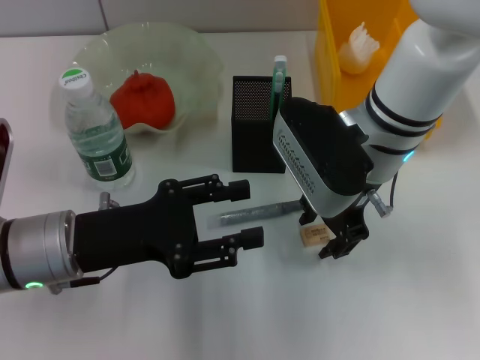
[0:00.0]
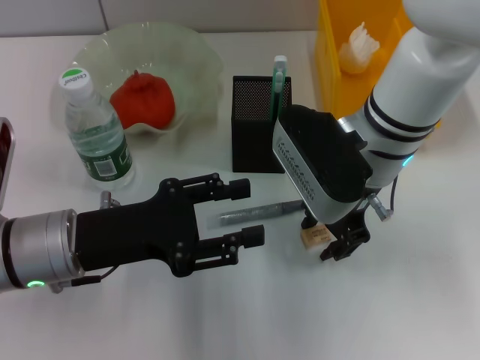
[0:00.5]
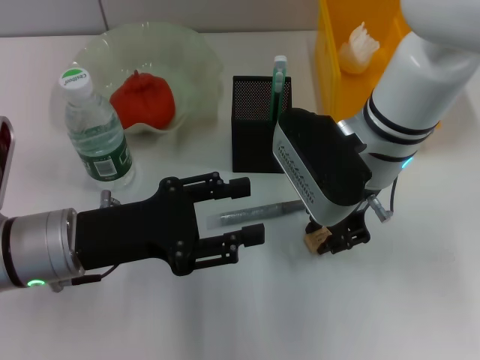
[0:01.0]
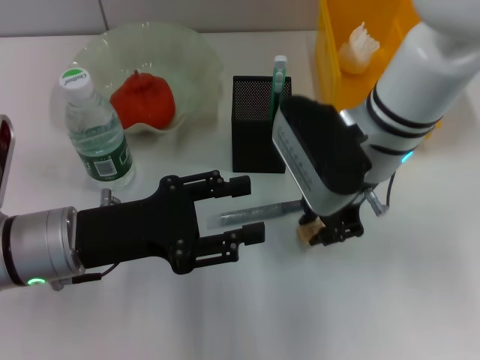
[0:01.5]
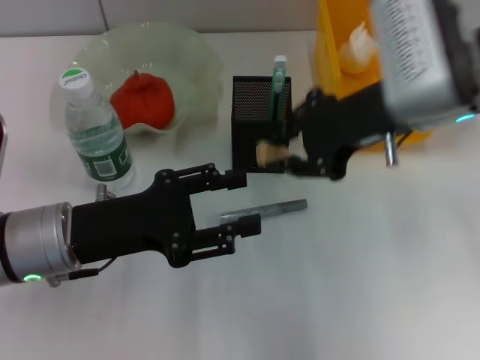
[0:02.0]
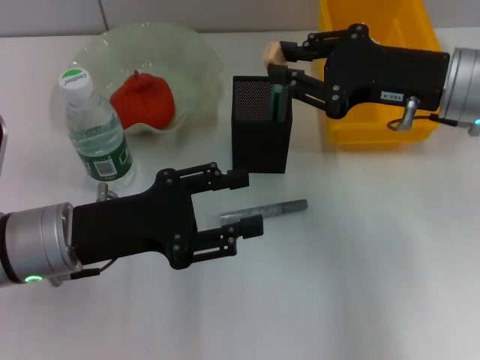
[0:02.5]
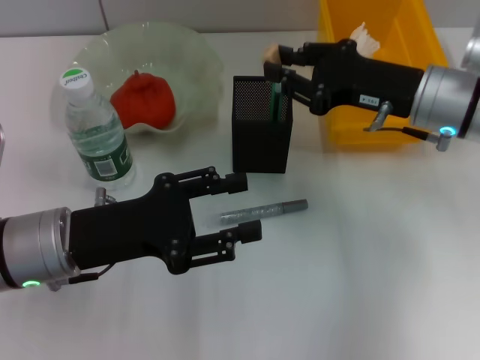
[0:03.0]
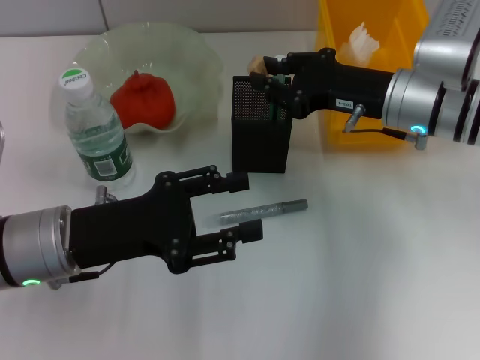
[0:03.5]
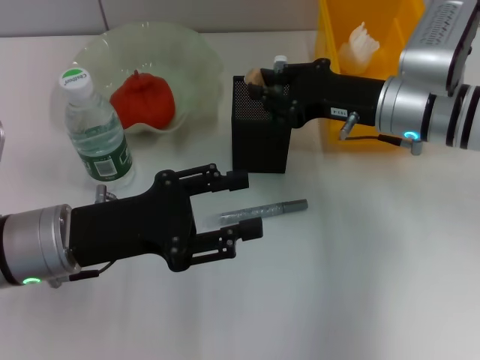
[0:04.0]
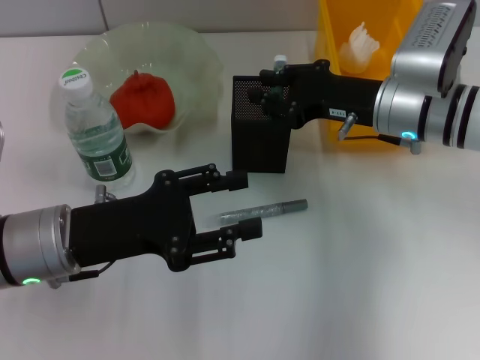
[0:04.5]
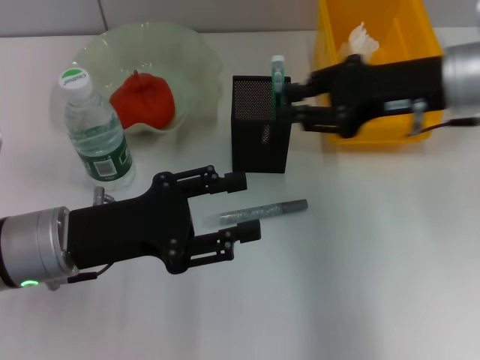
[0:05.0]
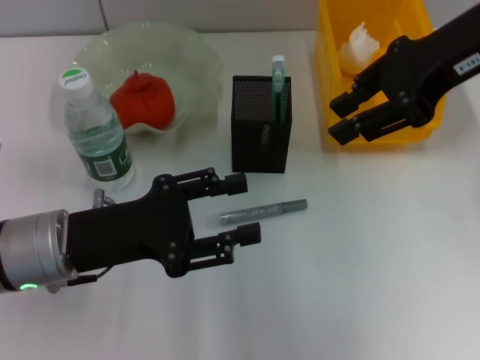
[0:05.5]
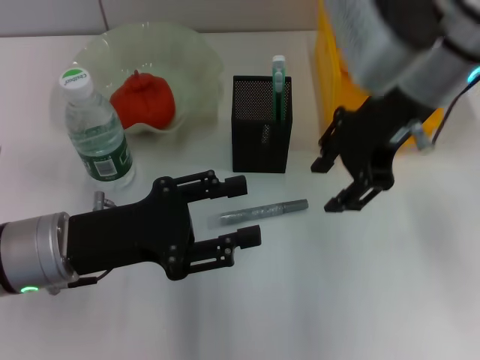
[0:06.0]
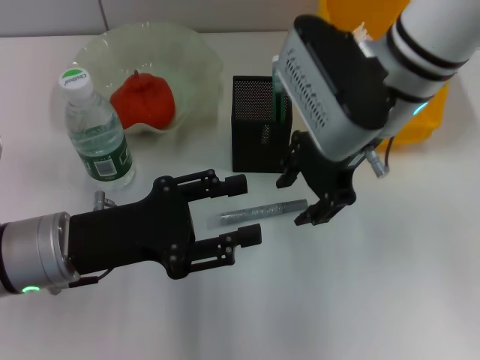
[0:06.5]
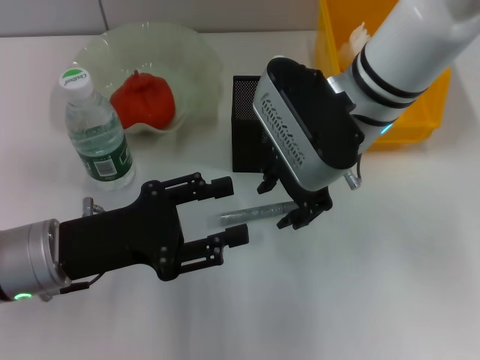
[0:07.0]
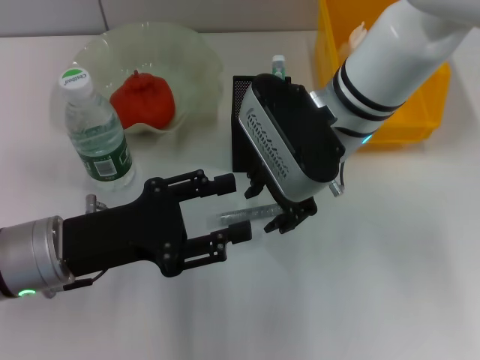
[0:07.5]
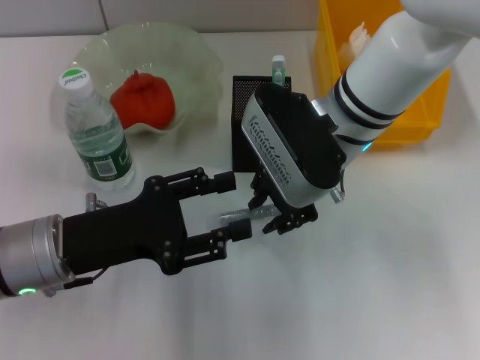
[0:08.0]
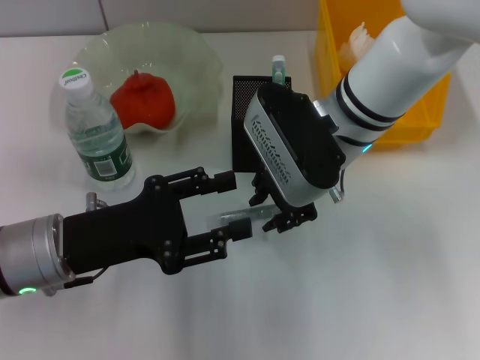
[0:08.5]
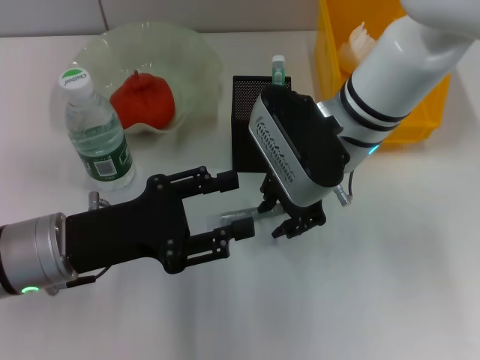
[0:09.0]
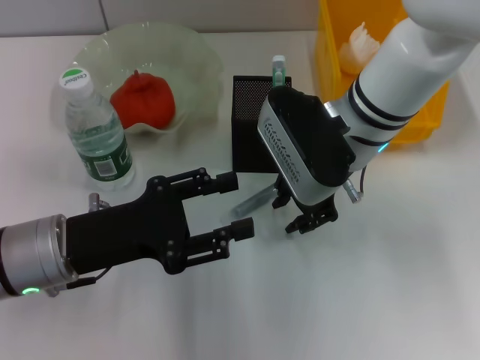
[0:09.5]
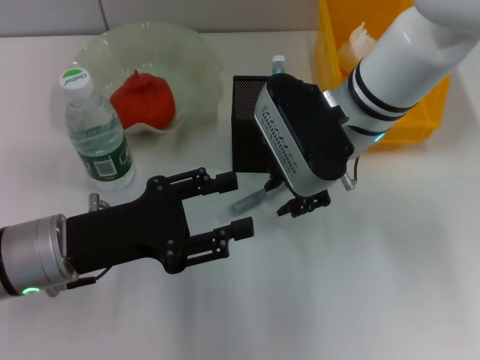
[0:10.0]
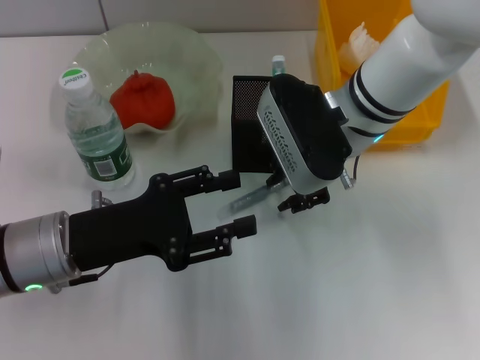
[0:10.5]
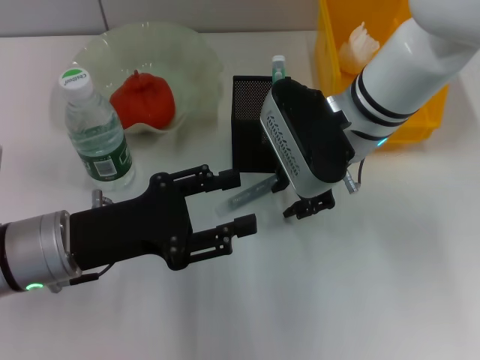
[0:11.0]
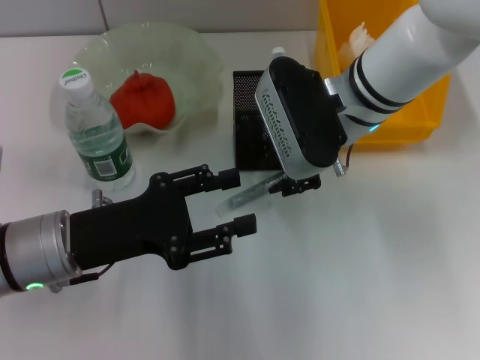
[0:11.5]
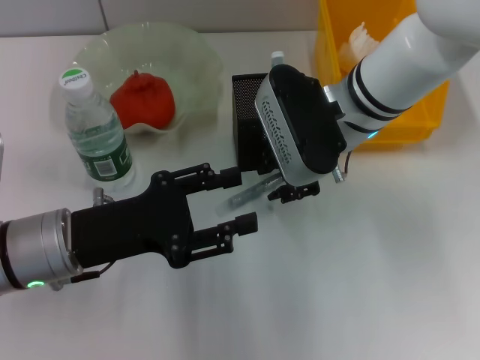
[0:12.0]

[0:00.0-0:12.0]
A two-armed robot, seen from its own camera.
Step, 0:01.5 to 0:04.5: Put the eraser into the pen holder with the right hand.
0:00.0 to 0:02.0: The right gripper goes some 10 cm upward and to the right, and closes up.
0:02.0 to 0:04.0: The right gripper shifts approximately 10 cm downward.
0:04.0 to 0:06.0: The right gripper moves upward, about 15 cm, and opens up.
0:06.0 to 0:08.0: The right gripper goes some 10 cm downward and to the left.
0:08.0 to 0:12.0: The grippers move only a little.

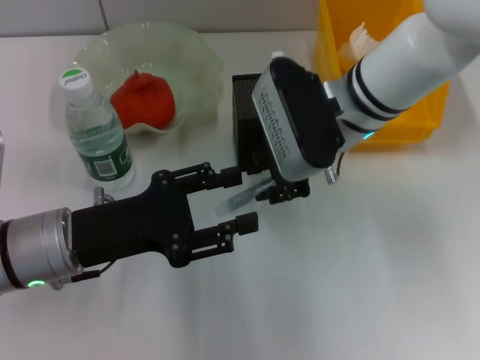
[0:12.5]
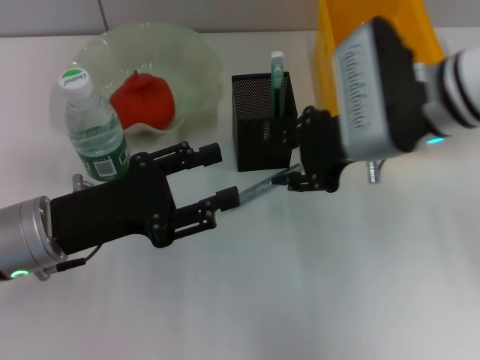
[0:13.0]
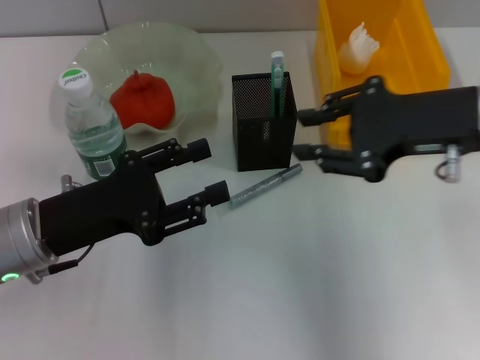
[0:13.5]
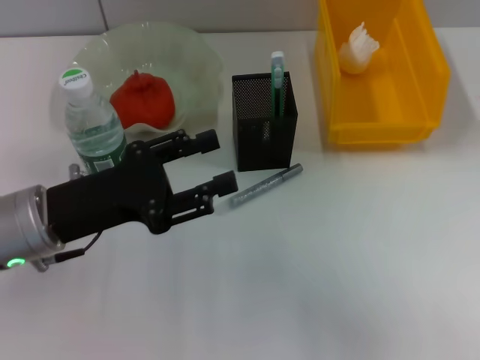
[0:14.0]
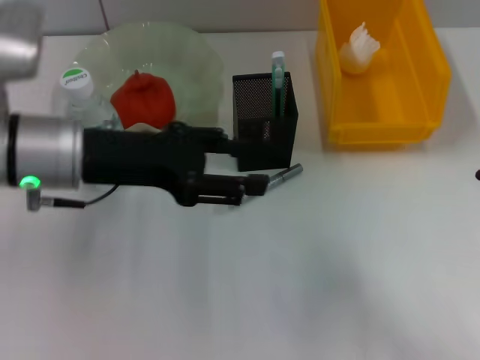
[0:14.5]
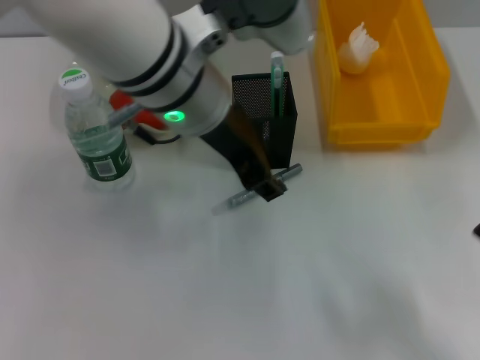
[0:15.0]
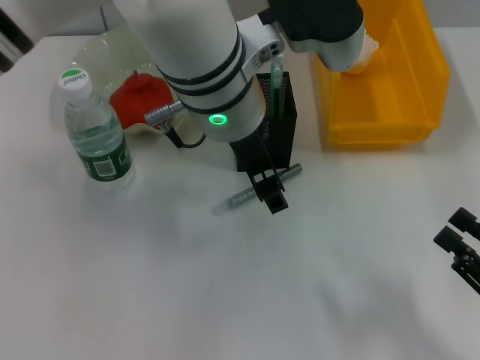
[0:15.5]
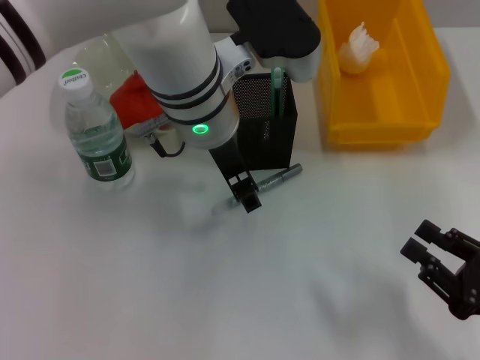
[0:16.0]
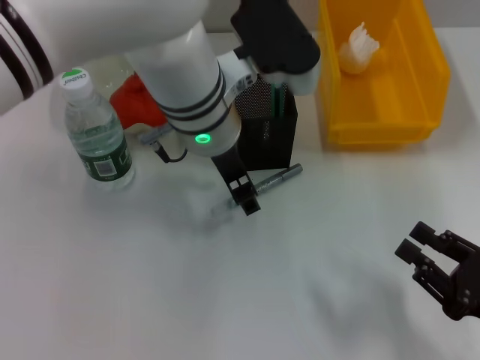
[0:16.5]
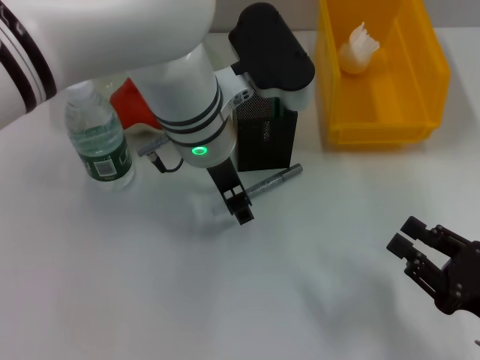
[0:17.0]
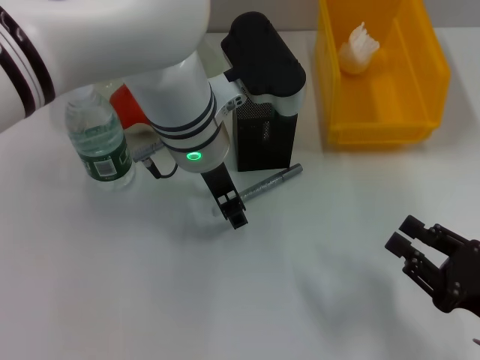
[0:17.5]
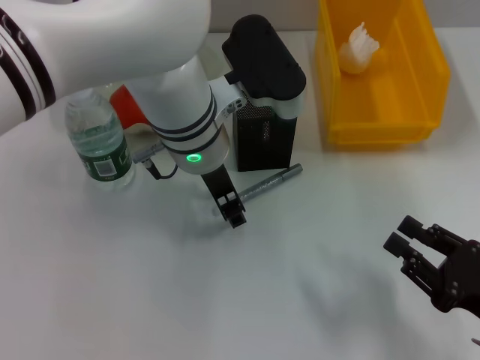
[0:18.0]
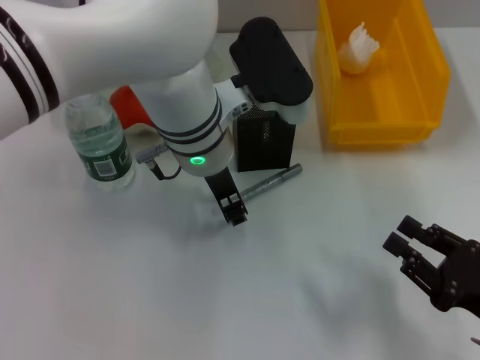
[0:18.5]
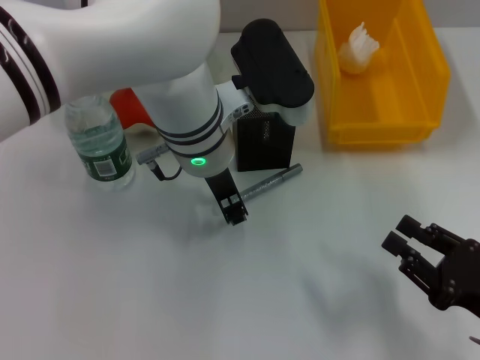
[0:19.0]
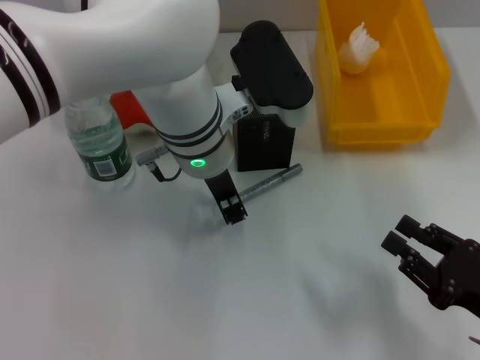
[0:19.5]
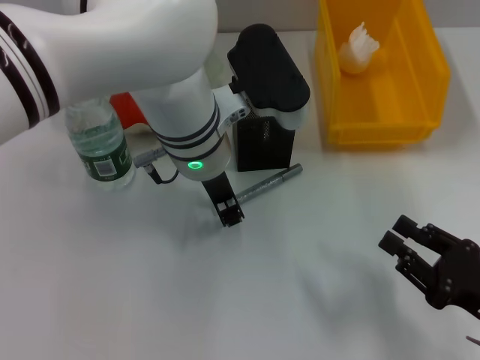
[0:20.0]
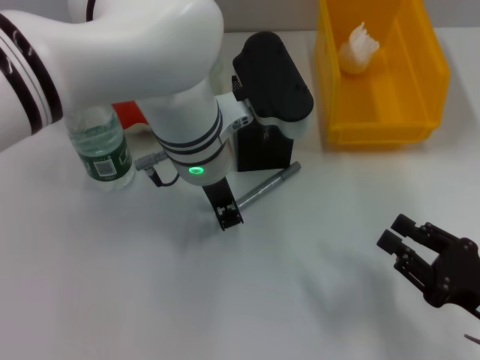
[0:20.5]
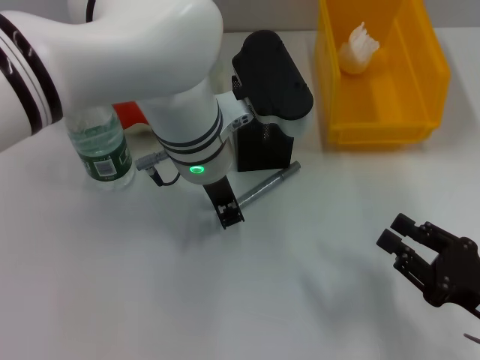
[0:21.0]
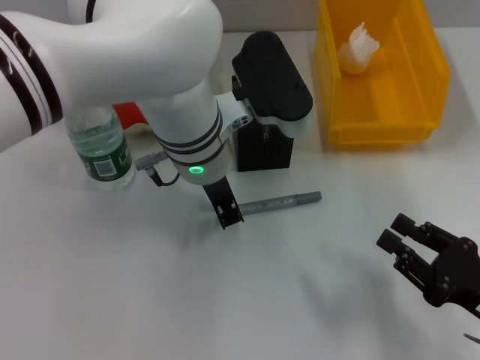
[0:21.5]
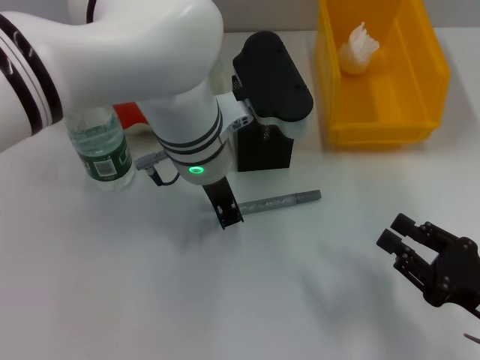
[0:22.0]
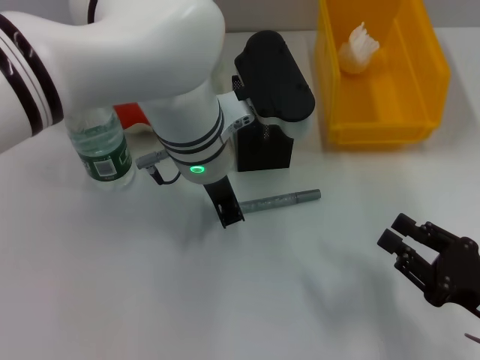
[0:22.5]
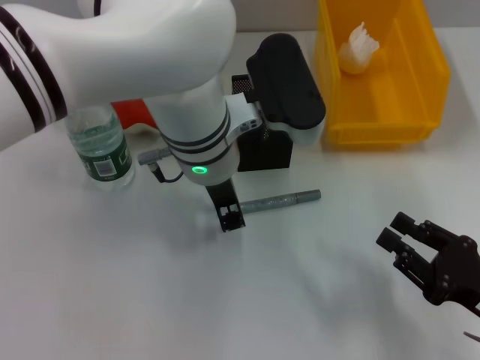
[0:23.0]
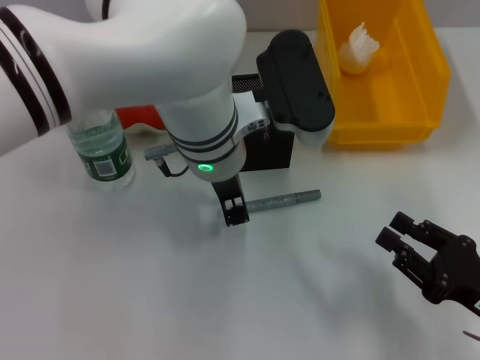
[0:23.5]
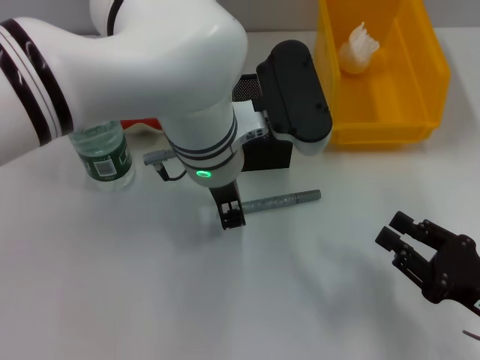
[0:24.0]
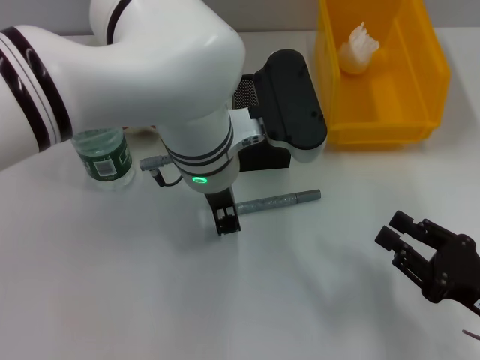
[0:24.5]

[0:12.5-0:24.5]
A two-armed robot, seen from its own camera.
0:12.5 to 0:14.5: The right gripper moves to the right and backward, approximately 30 cm. The left gripper travels upward and forward by roughly 10 cm.
0:14.5 to 0:16.5: The right gripper heads downward, covering about 5 cm. The left gripper is displaced to the right by approximately 15 cm.
0:16.5 to 0:18.5: The grippers stay close to where they were, moving slightly.
0:18.5 to 0:22.5: Both grippers stay put.
0:22.5 to 0:24.5: The grippers move only a little.

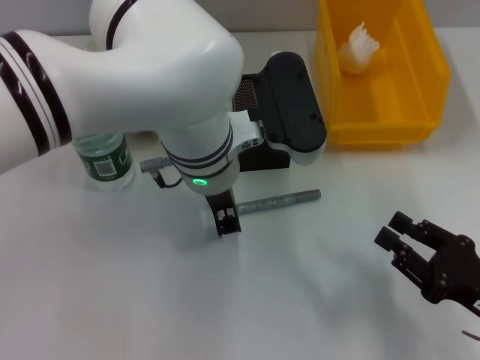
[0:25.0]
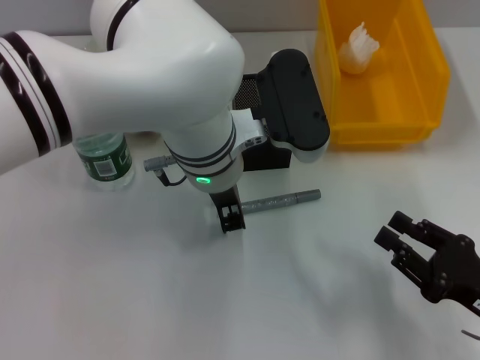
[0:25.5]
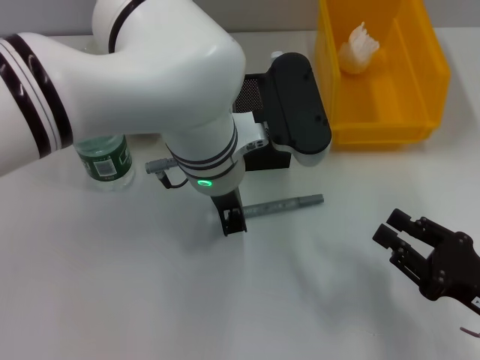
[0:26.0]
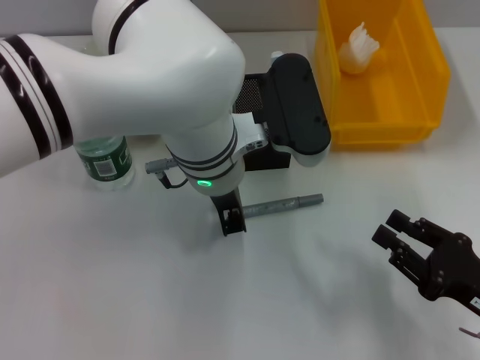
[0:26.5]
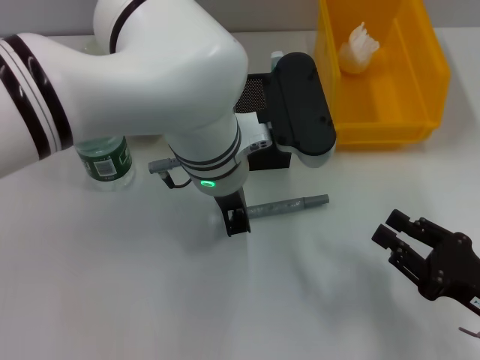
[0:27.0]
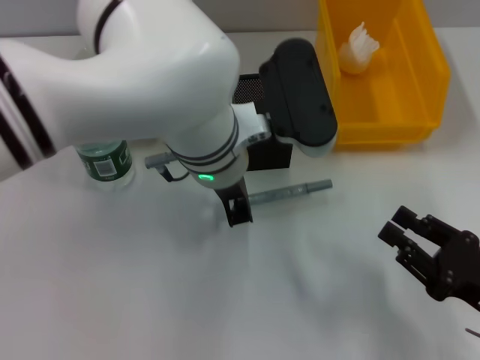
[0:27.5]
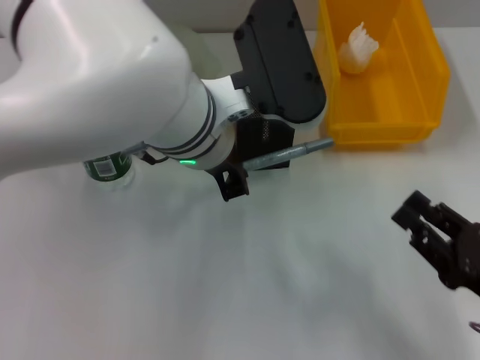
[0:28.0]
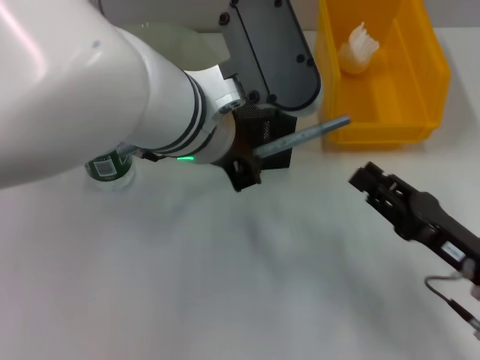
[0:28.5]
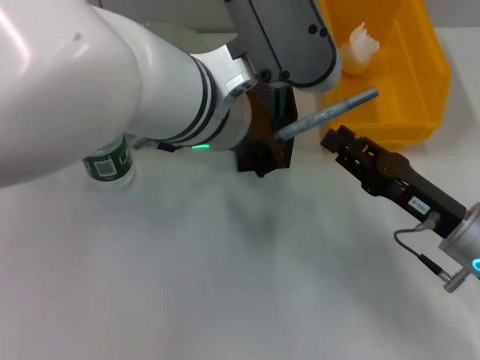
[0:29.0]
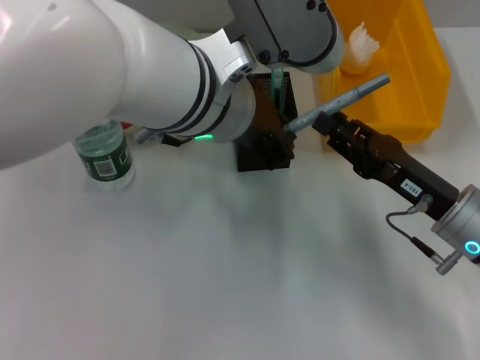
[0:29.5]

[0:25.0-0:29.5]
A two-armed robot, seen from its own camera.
Step, 0:25.0 to 0:27.0: Grab the gray glue with the left hand.
0:25.0 to 0:27.0: The two grippers keep their place.
0:27.0 to 0:29.5: The left gripper travels upward by about 10 cm; the right gripper moves forward and to the left, some 10 cm.
